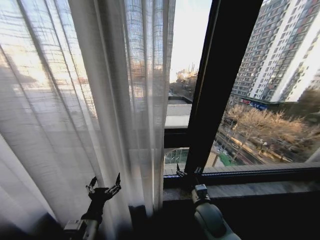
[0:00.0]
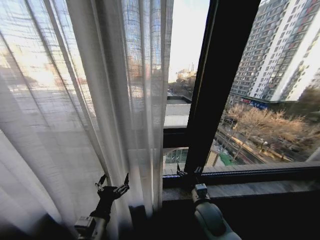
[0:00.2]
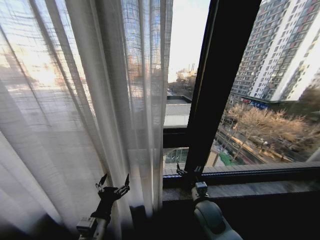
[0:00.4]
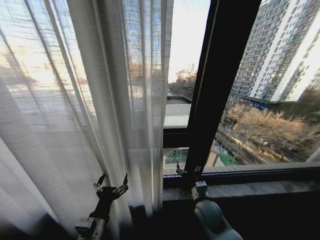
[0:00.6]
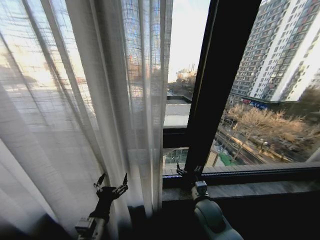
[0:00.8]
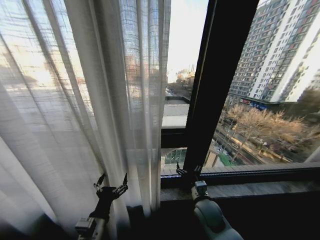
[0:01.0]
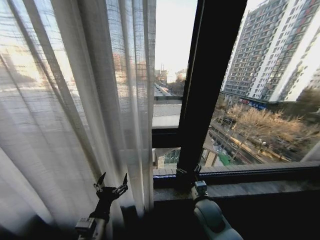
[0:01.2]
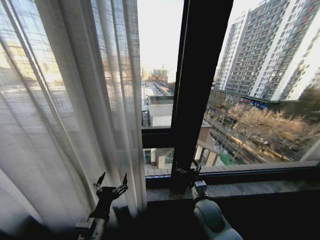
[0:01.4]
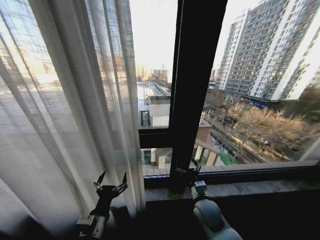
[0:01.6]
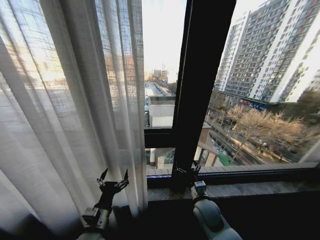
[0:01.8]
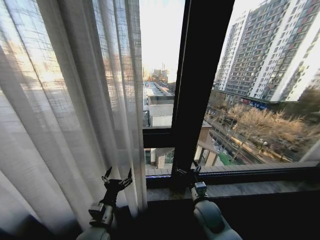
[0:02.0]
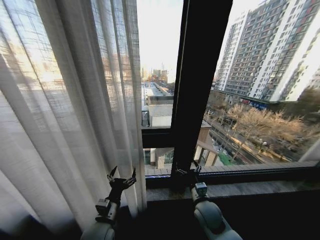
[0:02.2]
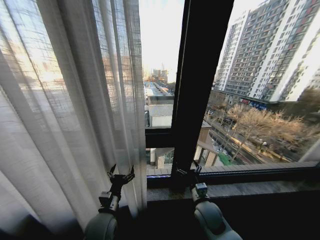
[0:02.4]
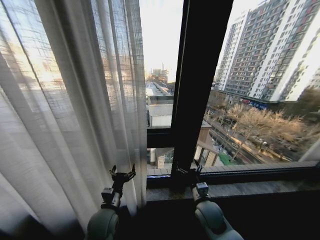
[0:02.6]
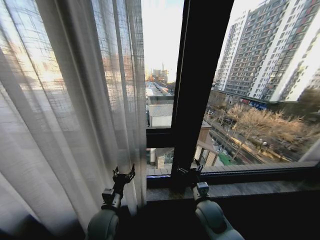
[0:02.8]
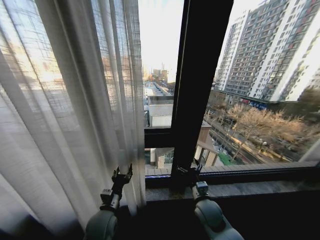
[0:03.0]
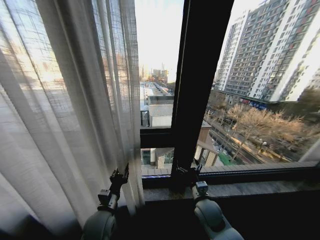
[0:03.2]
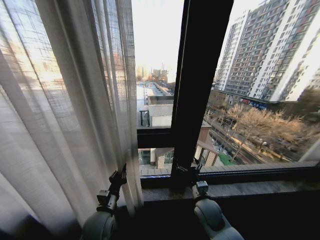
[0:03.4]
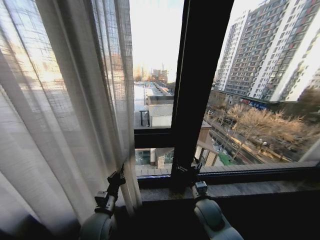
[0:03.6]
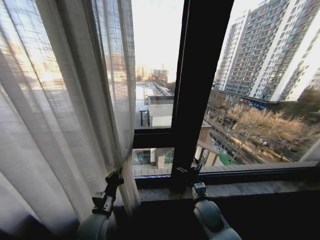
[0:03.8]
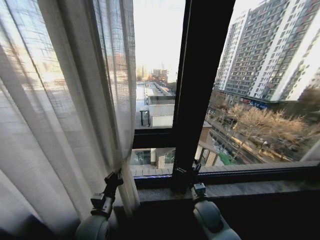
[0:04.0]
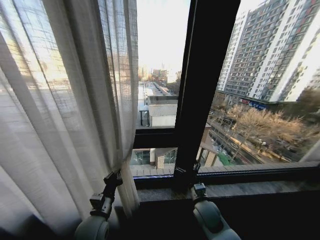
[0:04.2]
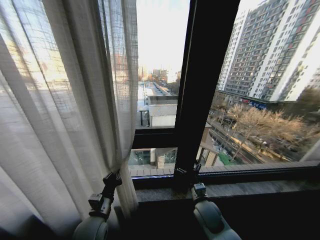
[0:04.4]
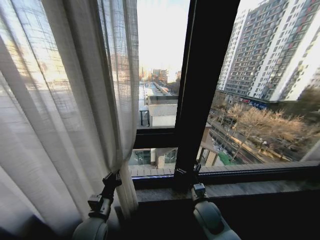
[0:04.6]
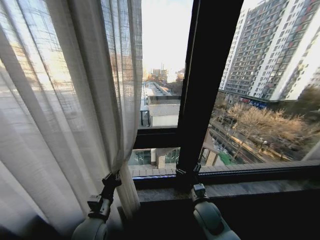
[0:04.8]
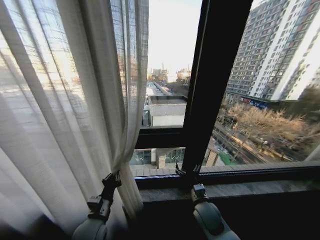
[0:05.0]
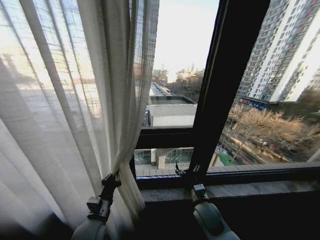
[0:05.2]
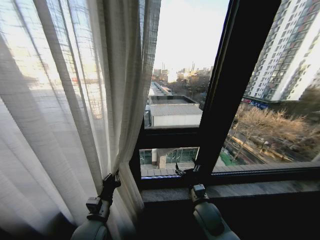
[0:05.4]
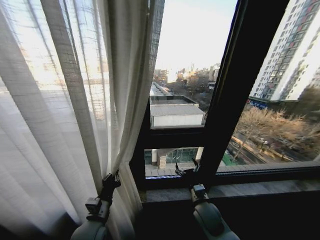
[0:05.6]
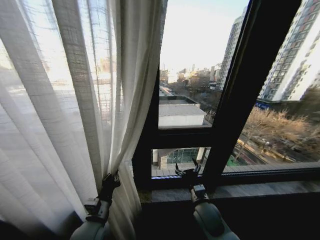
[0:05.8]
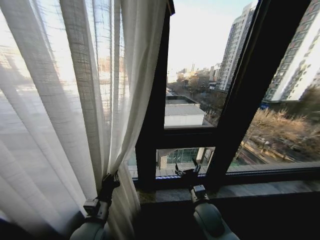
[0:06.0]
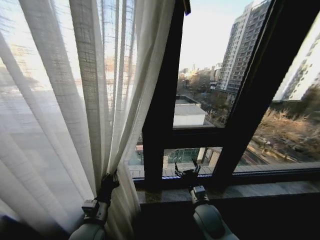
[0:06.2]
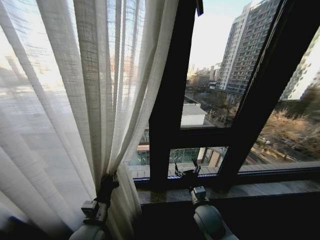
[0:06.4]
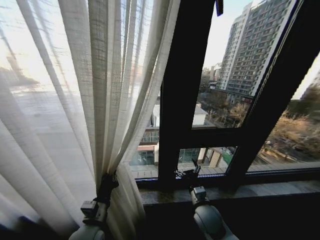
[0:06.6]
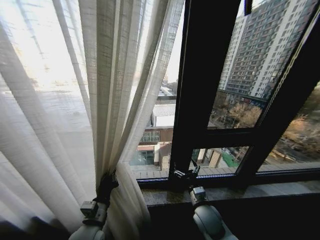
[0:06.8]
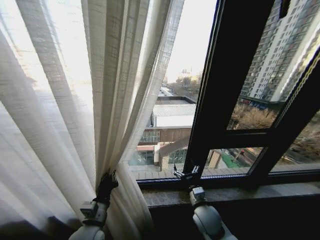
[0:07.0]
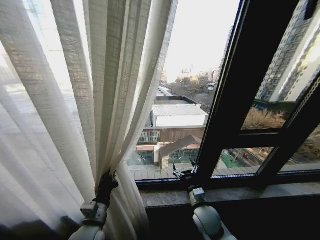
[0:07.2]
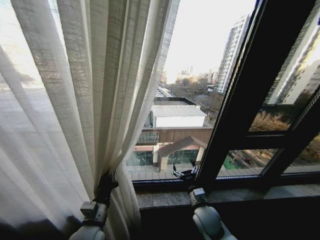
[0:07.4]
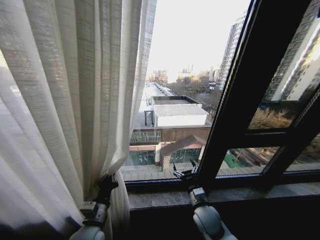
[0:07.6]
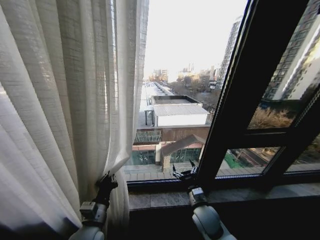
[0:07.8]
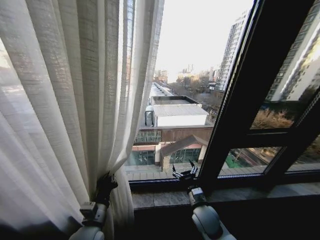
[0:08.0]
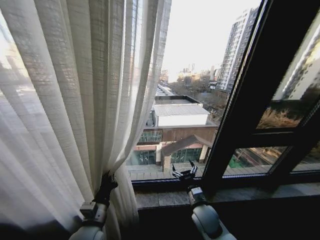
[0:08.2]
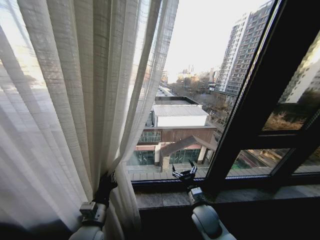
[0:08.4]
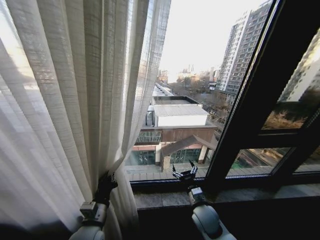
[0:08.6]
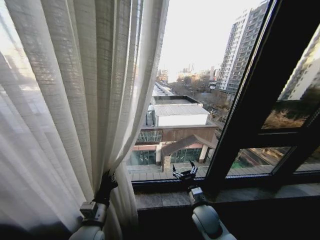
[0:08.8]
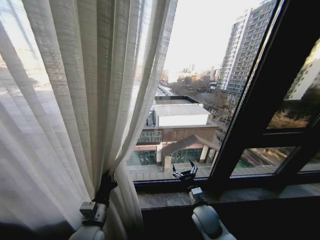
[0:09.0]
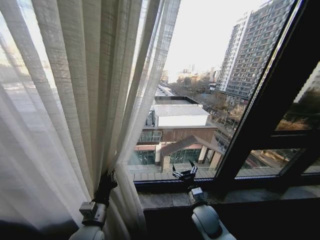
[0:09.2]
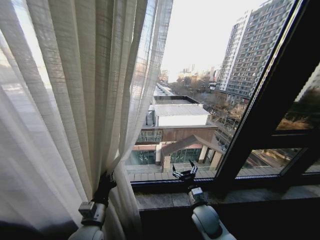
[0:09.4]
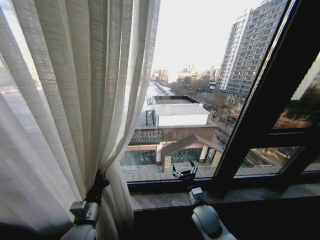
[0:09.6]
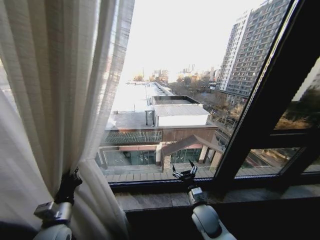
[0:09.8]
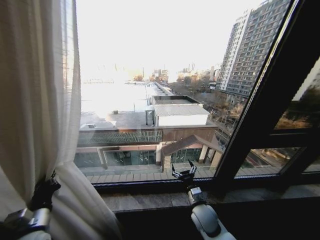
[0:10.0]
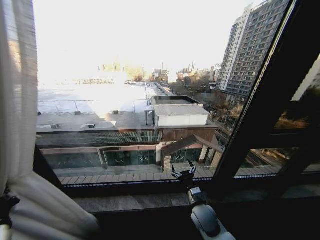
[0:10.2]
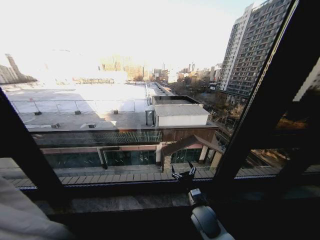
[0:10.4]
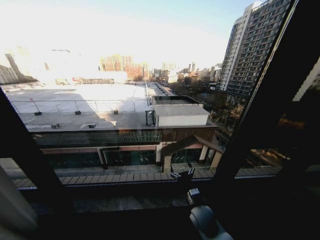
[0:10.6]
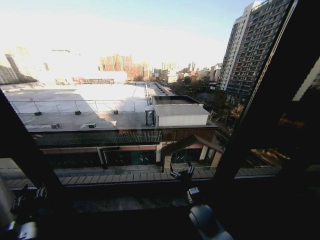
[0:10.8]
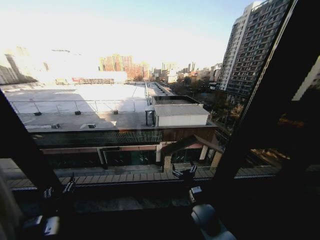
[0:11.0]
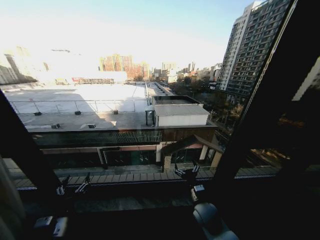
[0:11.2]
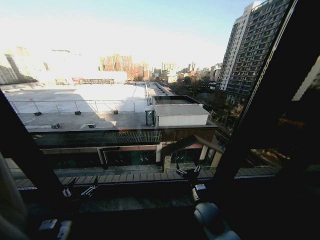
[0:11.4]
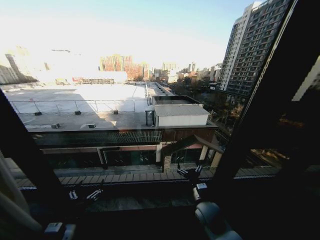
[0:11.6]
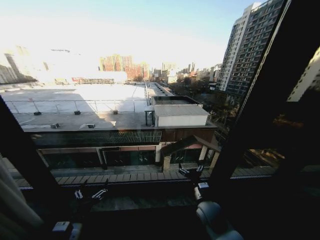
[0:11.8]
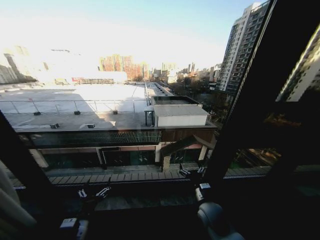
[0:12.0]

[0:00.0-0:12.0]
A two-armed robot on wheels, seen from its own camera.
Task of the whole recording: Open the curtains by pulling them apart, changing their state from closed to fully open.
0:01.6 to 0:03.0: The left gripper moves forward, roughly 10 cm, and closes.
0:03.0 to 0:04.4: The left gripper closes its fingers.
0:09.0 to 0:10.4: The left gripper heads to the left, covering roughly 30 cm.
0:10.4 to 0:12.0: The left gripper heads to the right, covering roughly 25 cm, and opens.

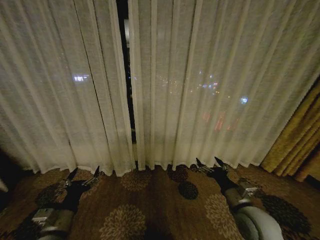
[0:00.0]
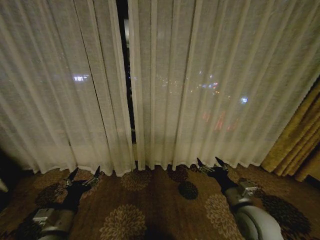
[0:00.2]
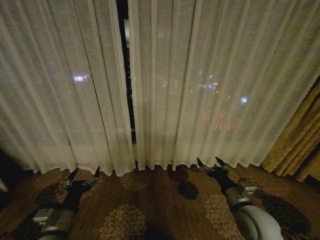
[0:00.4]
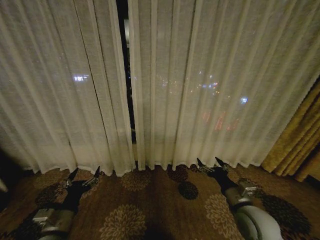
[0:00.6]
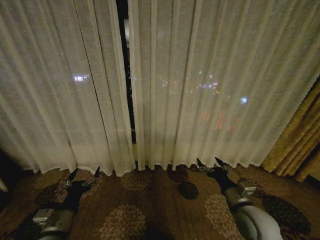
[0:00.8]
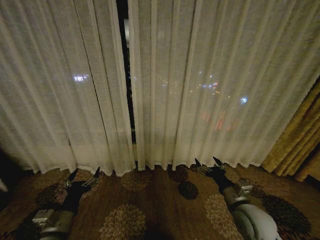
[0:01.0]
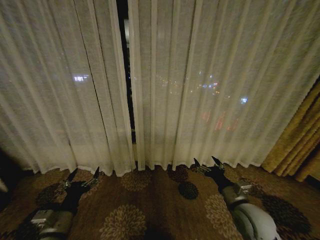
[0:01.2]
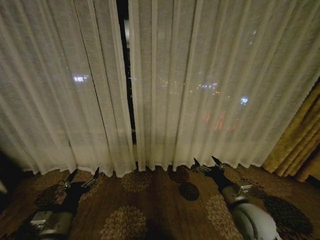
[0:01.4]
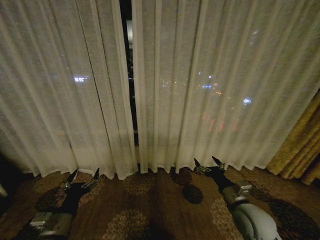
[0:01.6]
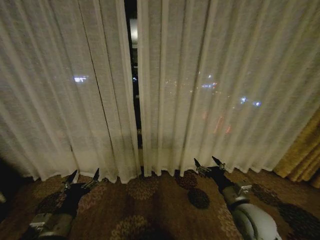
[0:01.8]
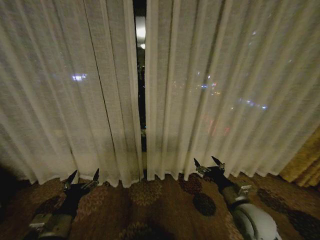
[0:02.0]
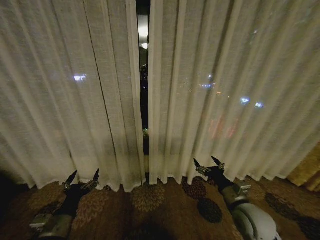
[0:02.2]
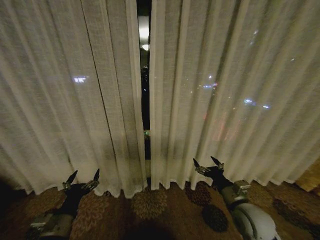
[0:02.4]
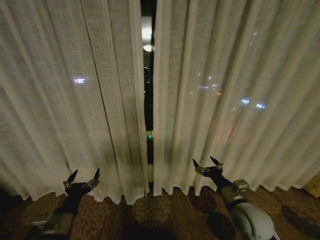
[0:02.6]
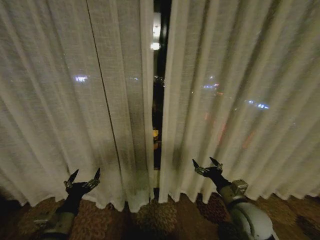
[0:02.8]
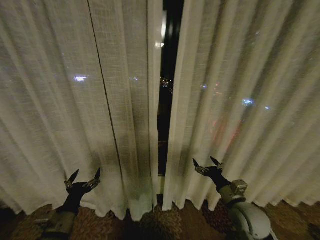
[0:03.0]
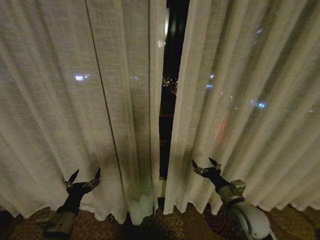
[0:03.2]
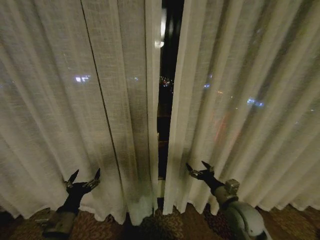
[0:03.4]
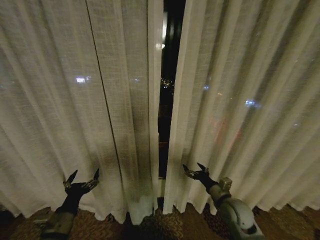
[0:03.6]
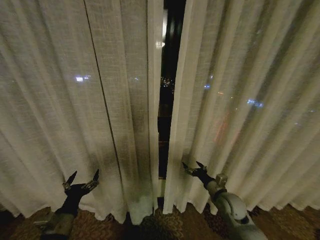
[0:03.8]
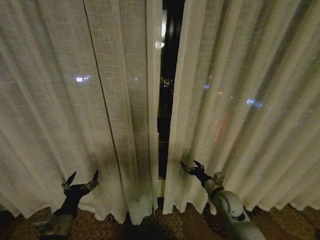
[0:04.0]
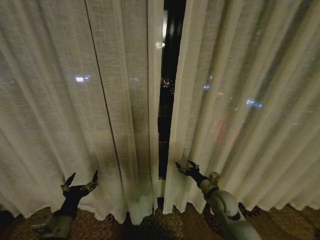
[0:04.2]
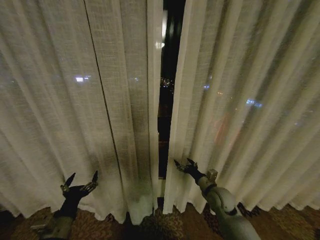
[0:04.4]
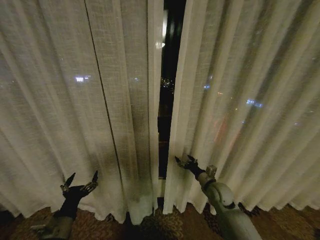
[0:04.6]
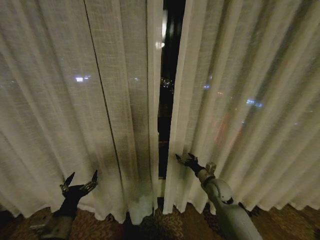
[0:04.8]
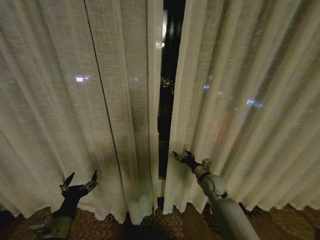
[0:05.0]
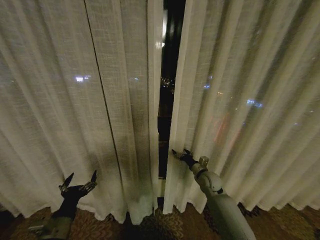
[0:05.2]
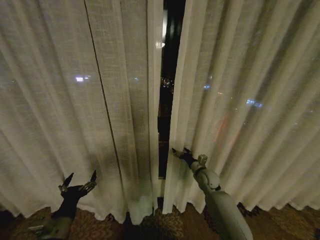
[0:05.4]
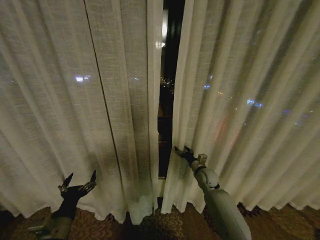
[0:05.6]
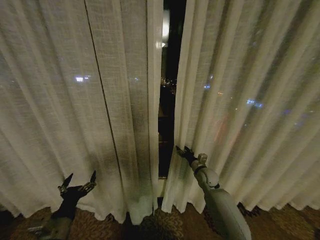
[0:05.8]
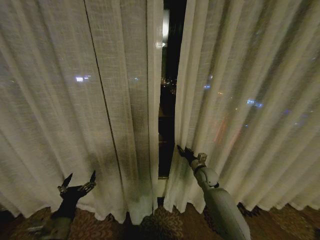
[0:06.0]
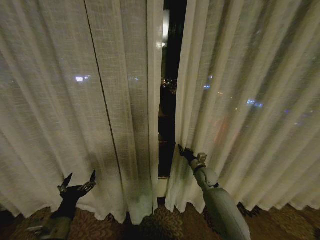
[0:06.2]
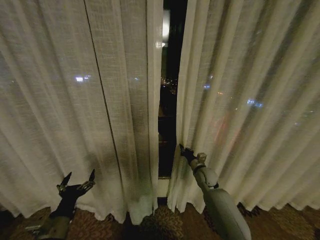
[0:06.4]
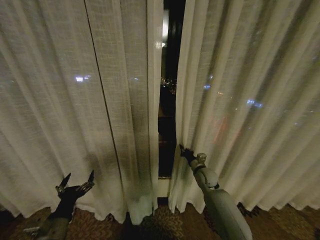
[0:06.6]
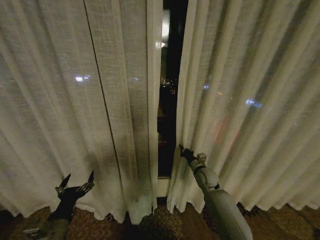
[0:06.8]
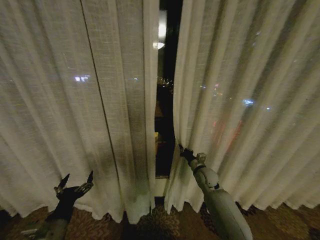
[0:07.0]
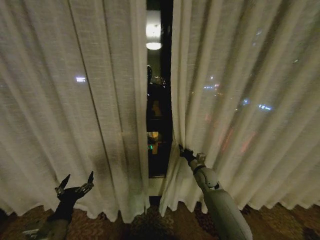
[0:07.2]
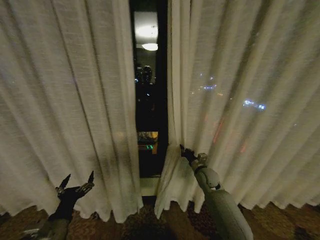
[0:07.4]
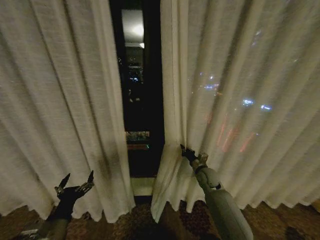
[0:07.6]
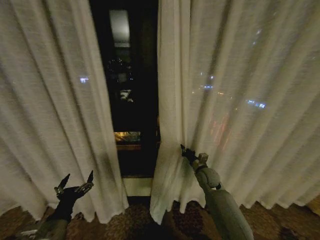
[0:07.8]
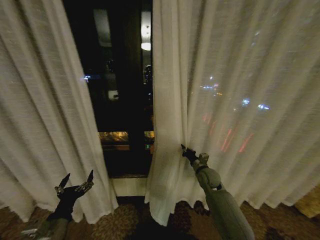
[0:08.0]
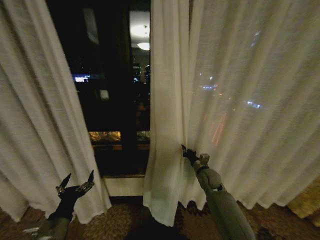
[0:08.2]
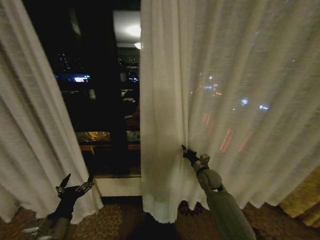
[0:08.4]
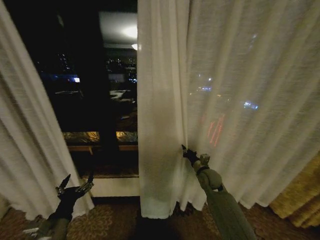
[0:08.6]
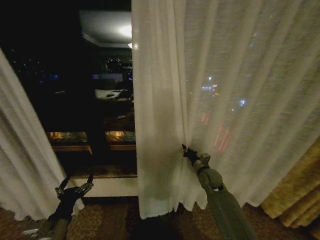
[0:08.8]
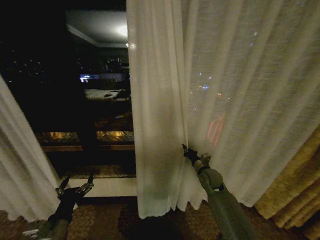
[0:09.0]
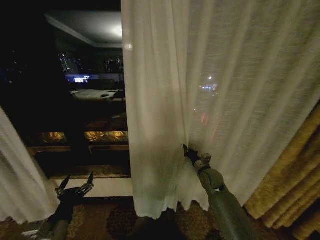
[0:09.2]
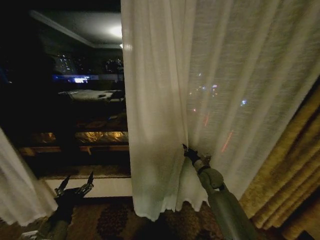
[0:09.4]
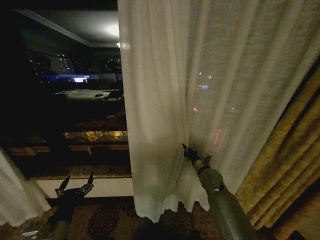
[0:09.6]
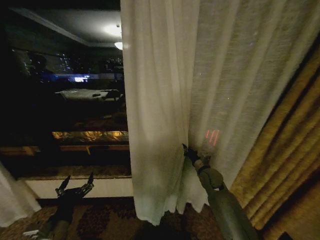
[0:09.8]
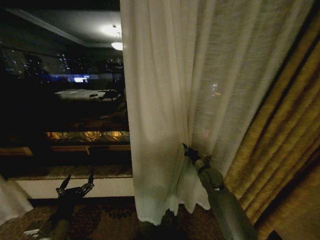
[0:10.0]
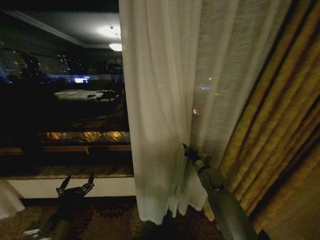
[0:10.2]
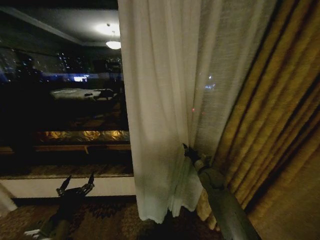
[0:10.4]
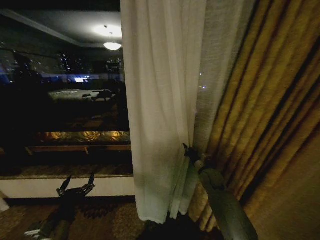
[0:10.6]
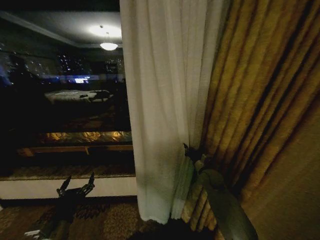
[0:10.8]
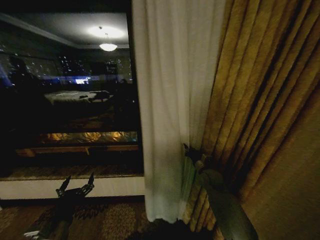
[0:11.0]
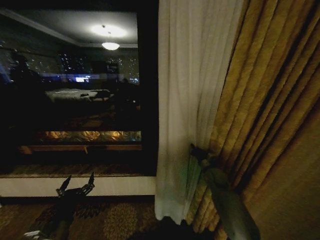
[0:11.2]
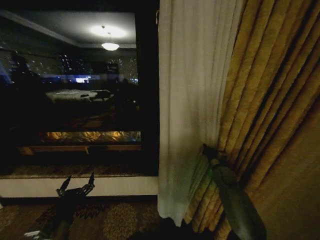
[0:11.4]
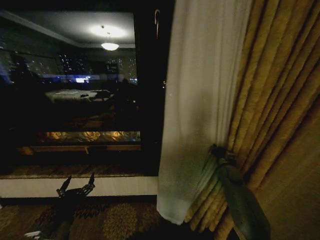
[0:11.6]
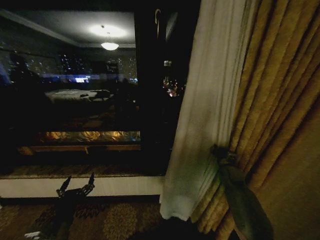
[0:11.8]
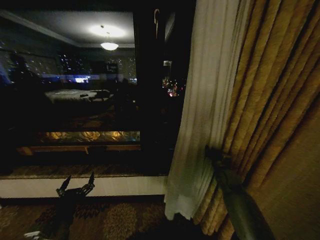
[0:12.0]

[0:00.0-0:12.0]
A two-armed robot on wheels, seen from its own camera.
Task of the whole recording: Open the curtains by pulling them apart, changing their state from closed to fully open.
0:03.0 to 0:04.4: The right gripper heads forward and downward, covering roughly 10 cm.
0:04.4 to 0:06.0: The right gripper travels forward by roughly 10 cm, and closes its fingers.
0:06.0 to 0:07.6: The right gripper closes up.
0:10.4 to 0:12.0: The right gripper travels to the right by roughly 10 cm.
